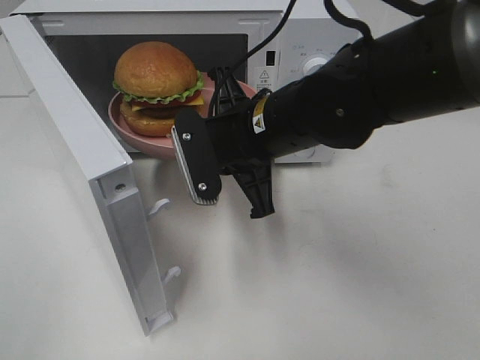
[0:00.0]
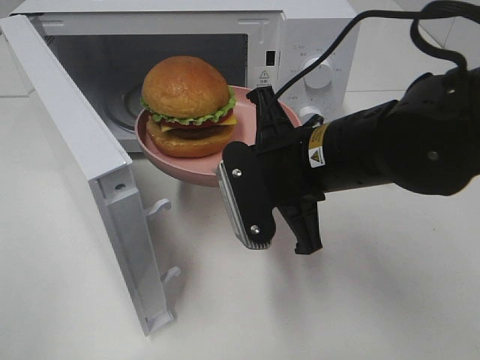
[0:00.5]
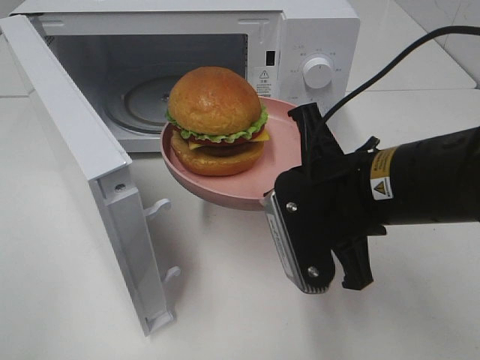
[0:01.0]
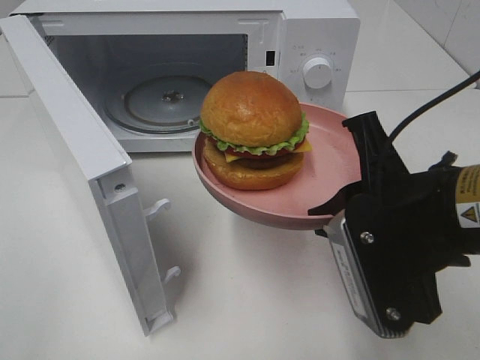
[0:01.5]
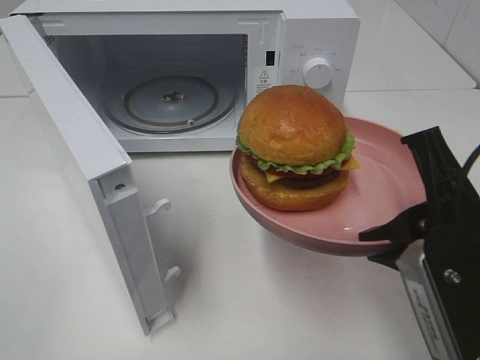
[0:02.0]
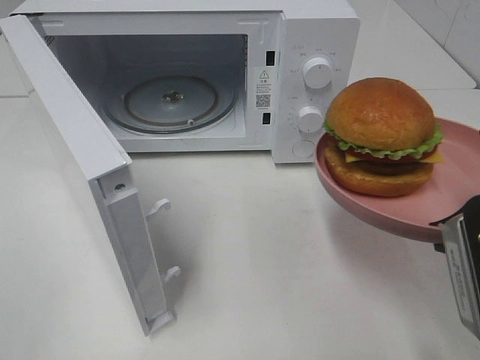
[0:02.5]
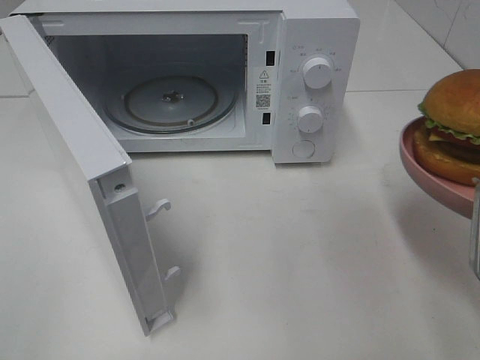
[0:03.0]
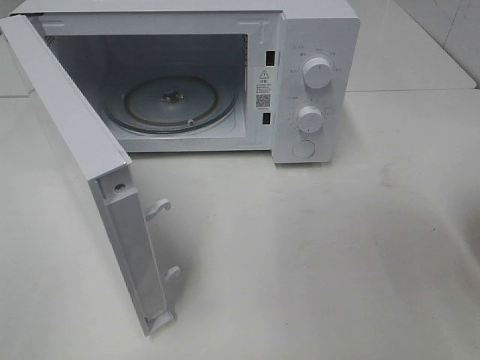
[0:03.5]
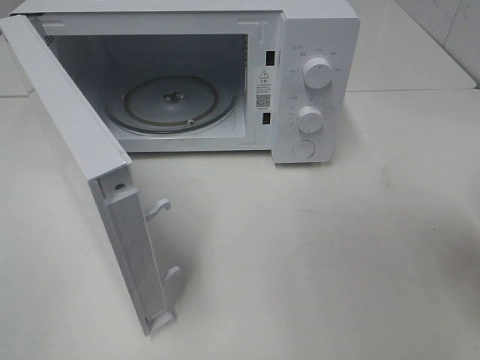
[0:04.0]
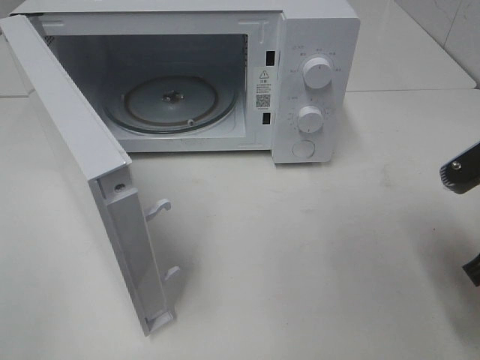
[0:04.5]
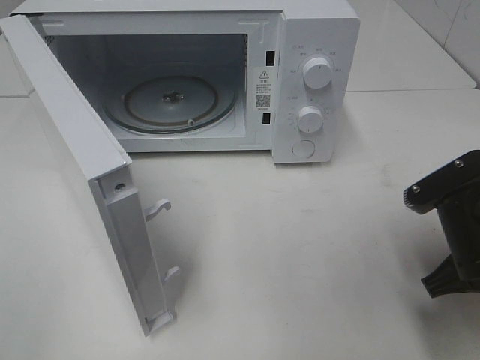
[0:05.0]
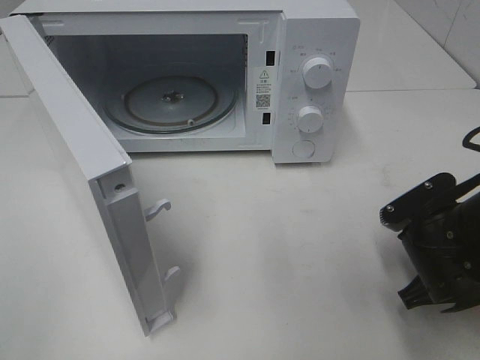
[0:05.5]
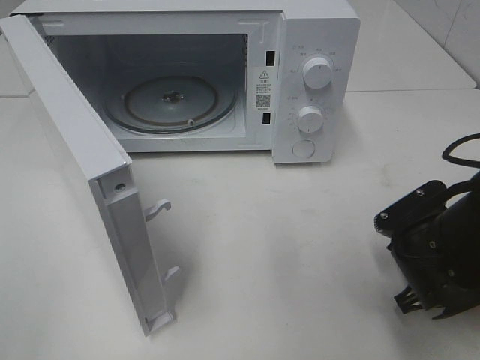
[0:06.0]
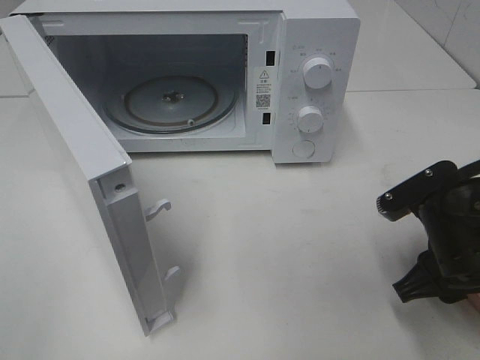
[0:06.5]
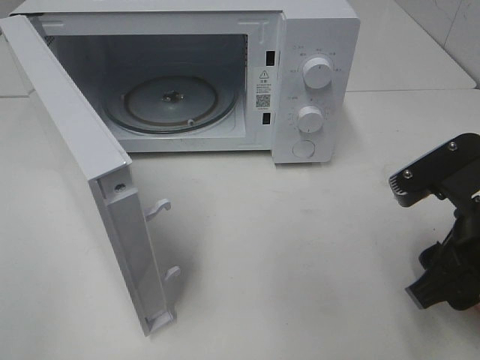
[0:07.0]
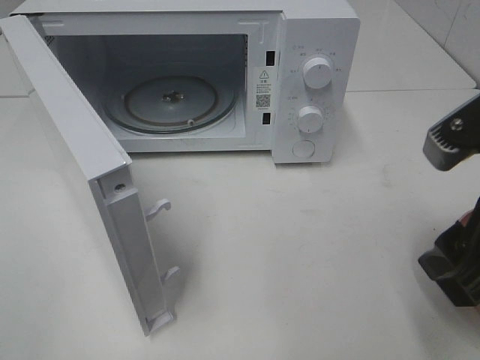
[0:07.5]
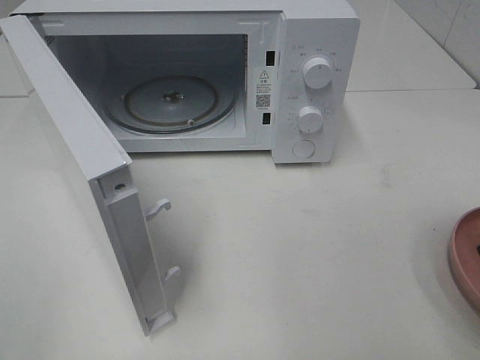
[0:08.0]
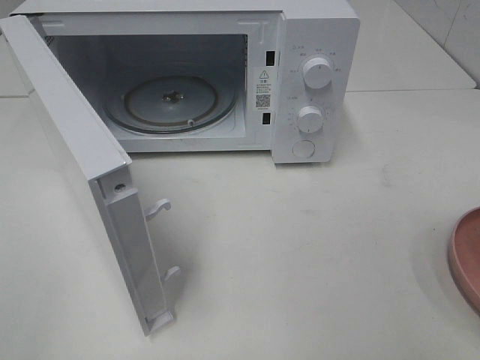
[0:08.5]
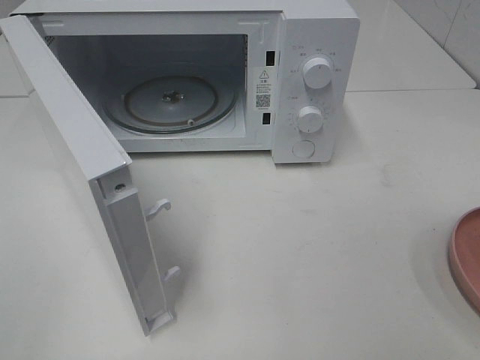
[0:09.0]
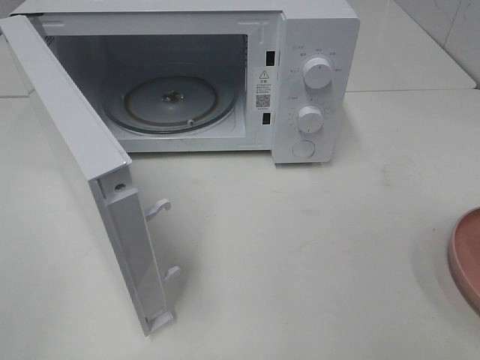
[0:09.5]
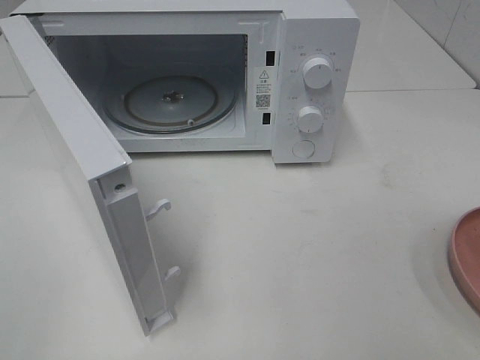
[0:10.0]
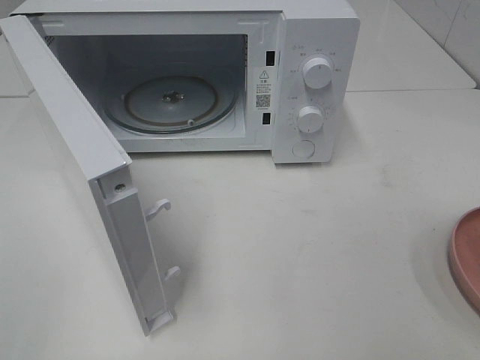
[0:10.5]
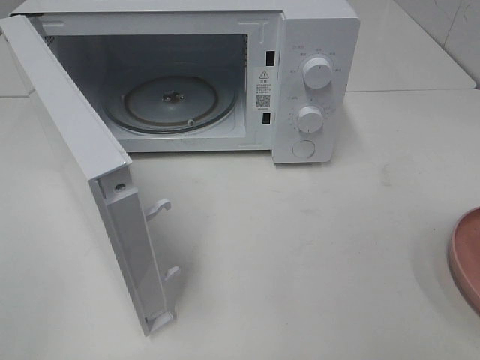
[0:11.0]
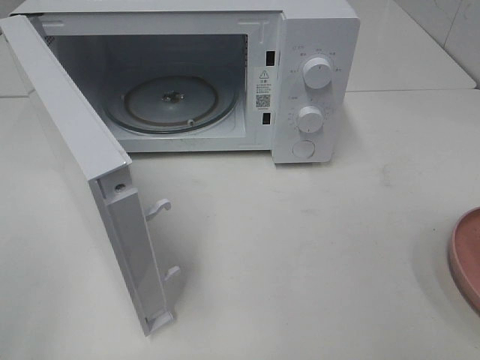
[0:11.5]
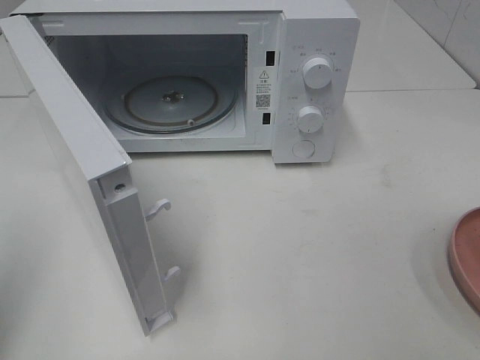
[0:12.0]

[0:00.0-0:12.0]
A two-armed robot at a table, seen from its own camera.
Task of the whole recording: Heat the burger.
Step, 0:00.0 to 0:07.0: Right hand: place the plate on the table.
0:00.0 to 0:02.0: The right gripper shifts approximately 20 cm backward and to the right.
0:02.0 to 0:04.0: The right gripper is displaced to the right by about 5 cm.
0:04.0 to 0:06.0: The right gripper shifts approximately 15 cm downward and forward.
0:06.0 to 0:08.0: The right gripper travels upward and backward by about 25 cm, and opens its fingers.

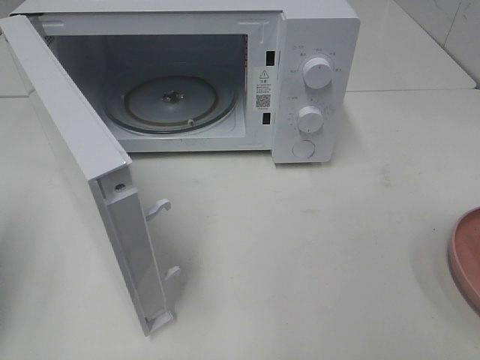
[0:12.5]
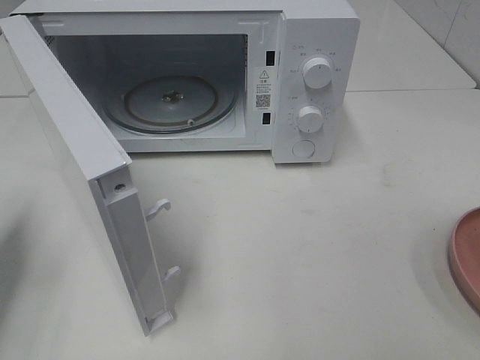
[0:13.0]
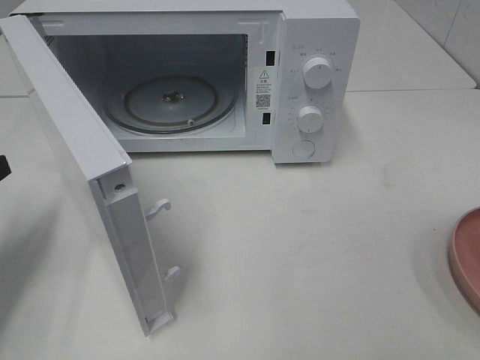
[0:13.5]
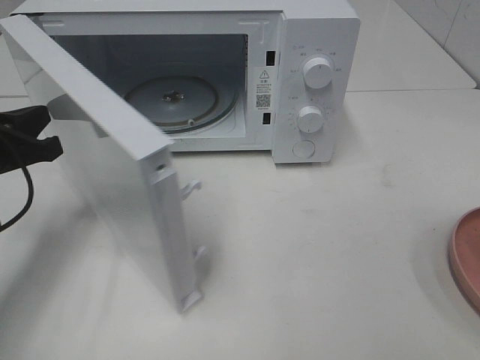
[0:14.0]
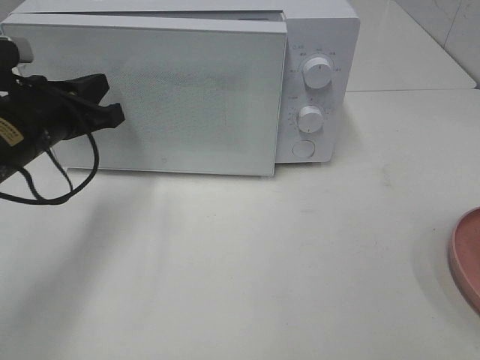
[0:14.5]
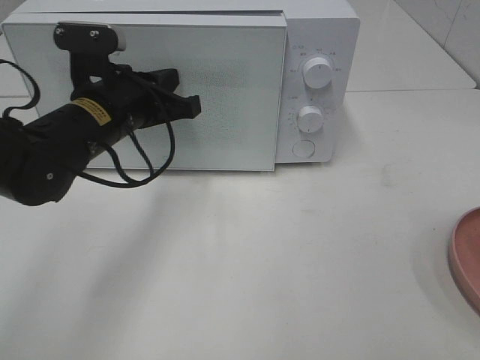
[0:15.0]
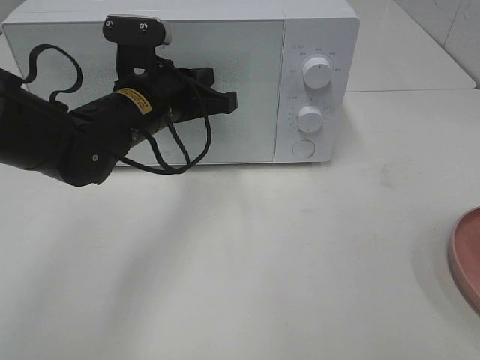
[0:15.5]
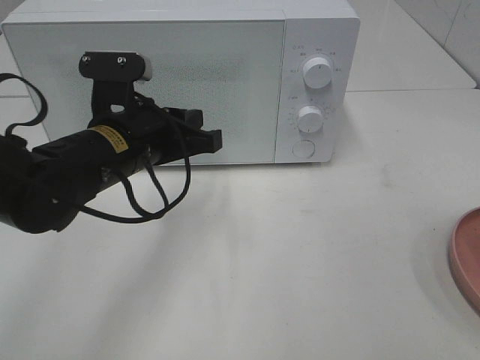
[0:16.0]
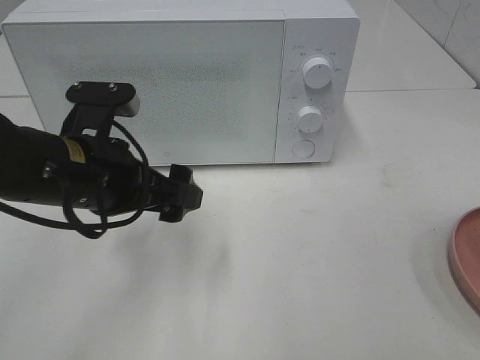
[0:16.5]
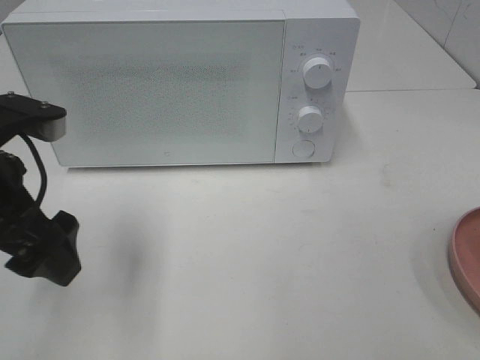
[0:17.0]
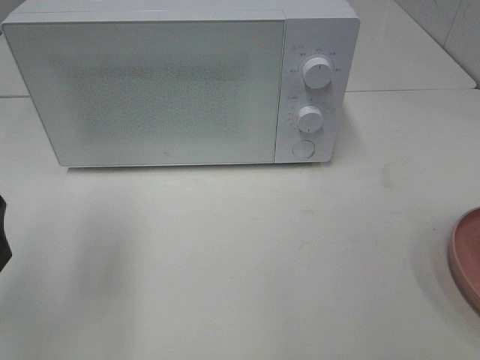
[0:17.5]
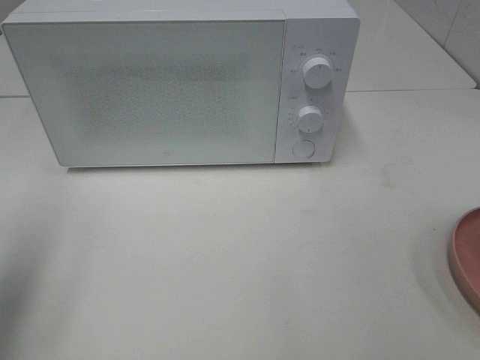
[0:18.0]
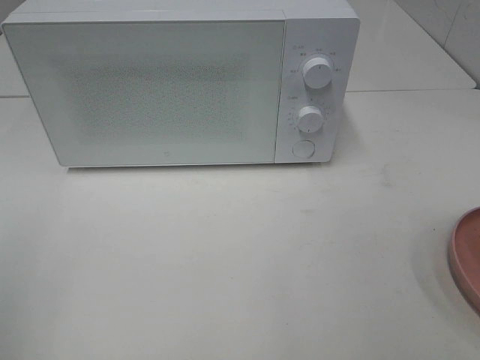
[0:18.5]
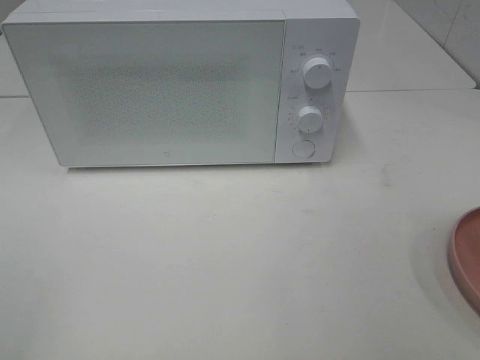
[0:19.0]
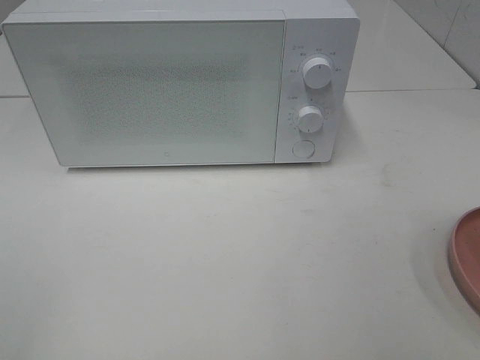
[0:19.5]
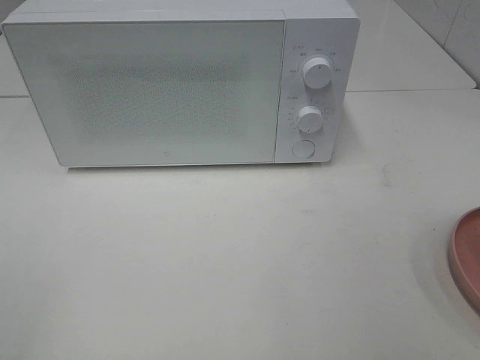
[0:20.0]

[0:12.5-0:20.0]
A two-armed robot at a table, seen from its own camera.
Task of the whole recording: Heat the burger.
Step, 0:12.5 to 0:16.0: Left hand: close the microwave door.
0:12.5 to 0:14.5: The left gripper moves forward, to the right and downward, approximately 20 cm.
0:14.5 to 0:16.5: The left gripper is displaced backward and to the right by about 10 cm, and opens up.
0:16.5 to 0:18.0: The left gripper goes some 25 cm to the left, upward and backward.
0:18.0 to 0:20.0: The left gripper is displaced backward by approximately 15 cm.

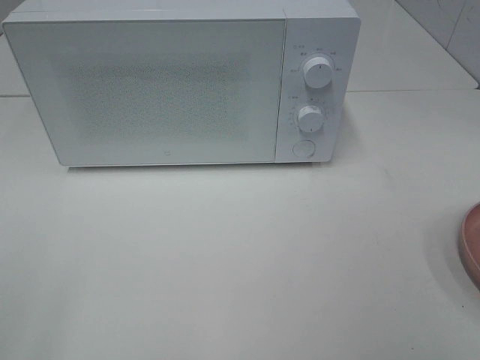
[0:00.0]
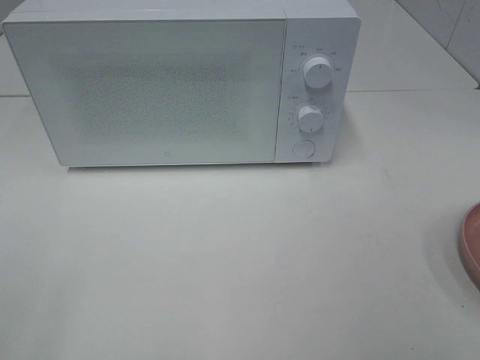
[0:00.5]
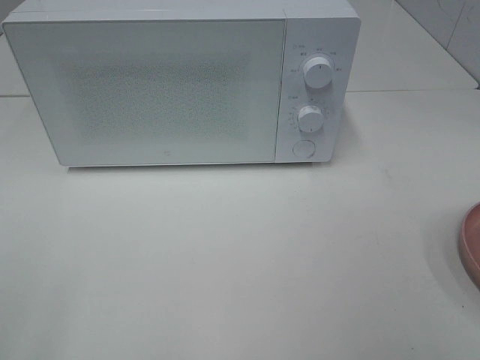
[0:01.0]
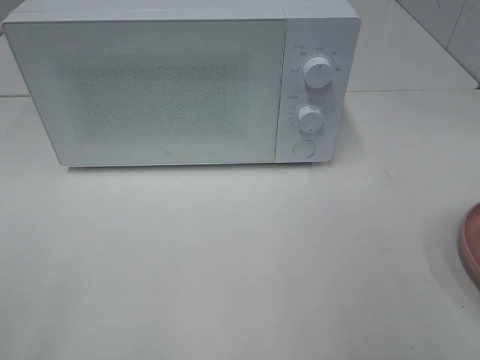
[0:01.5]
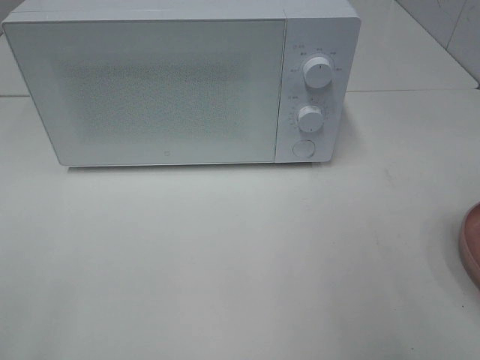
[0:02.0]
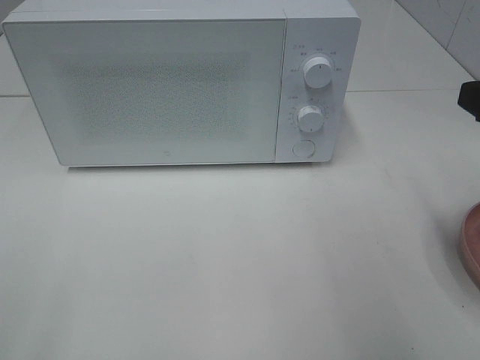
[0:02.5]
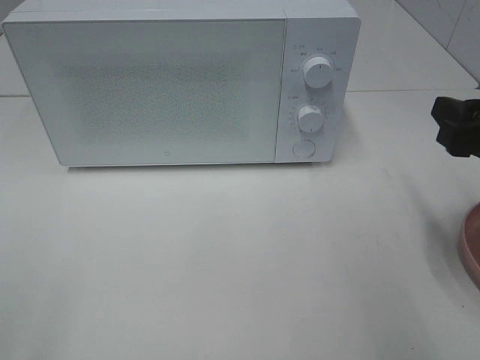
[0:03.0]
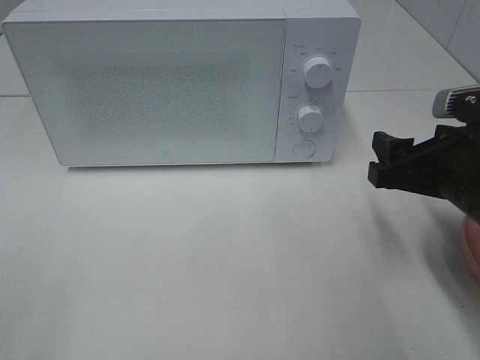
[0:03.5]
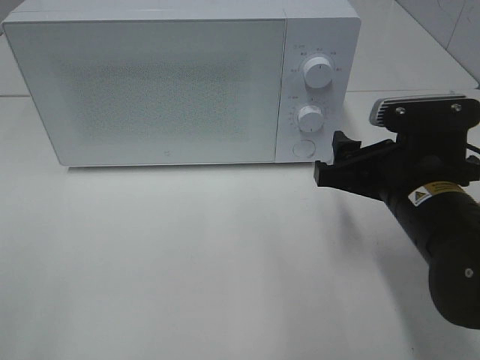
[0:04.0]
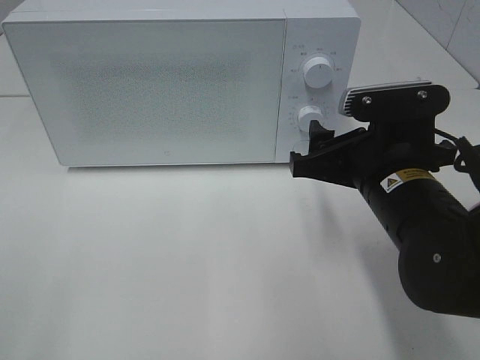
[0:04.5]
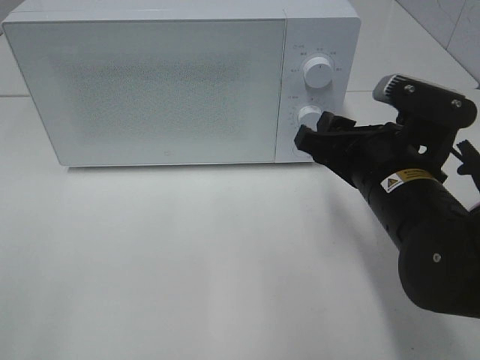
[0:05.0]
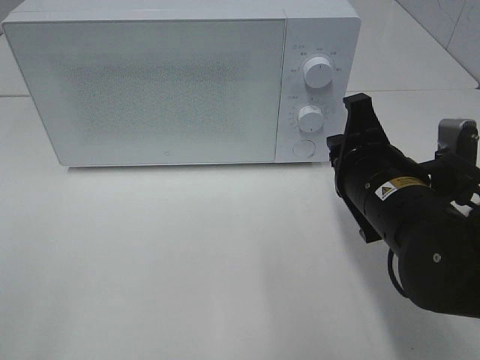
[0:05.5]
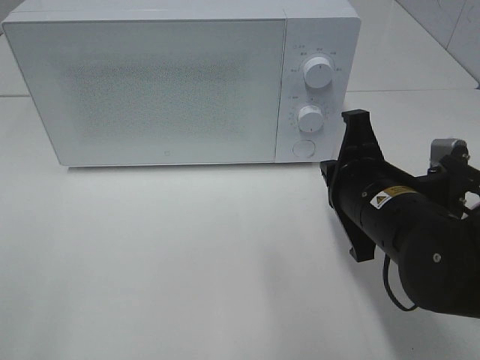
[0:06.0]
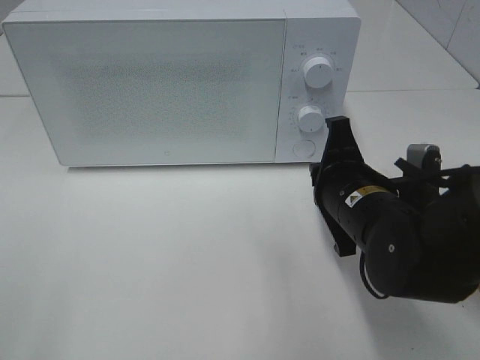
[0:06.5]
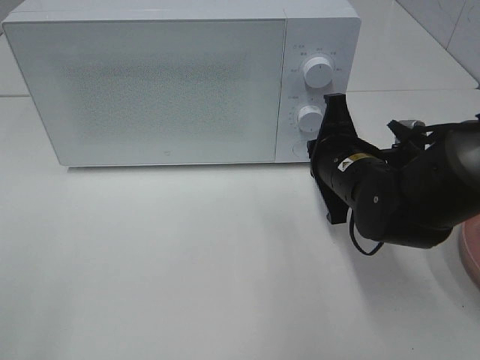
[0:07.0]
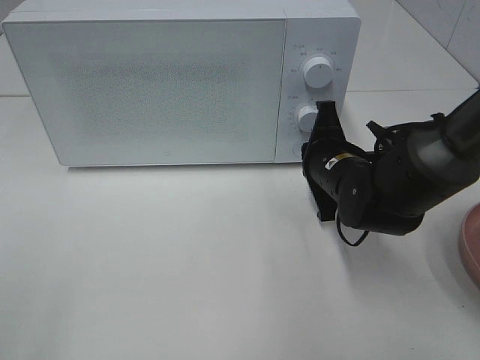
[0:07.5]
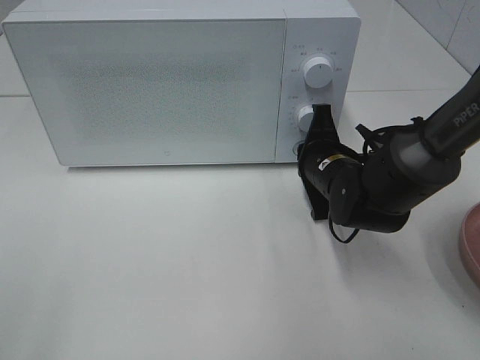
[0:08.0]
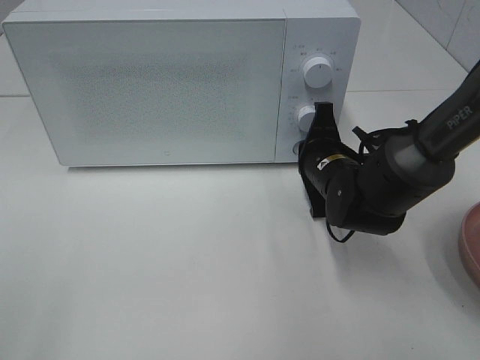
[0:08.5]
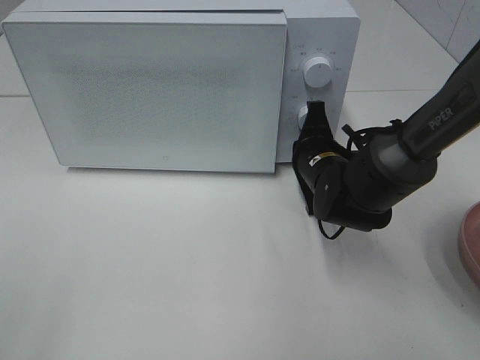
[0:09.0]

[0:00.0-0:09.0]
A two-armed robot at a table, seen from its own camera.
Task of the whole recording: Heat the burger.
0:02.0 to 0:04.5: The right gripper moves downward, to the left and forward, about 20 cm.
0:04.5 to 0:07.0: The right gripper heads forward, covering about 5 cm, and closes its fingers.
0:07.0 to 0:09.0: The right gripper is displaced forward by approximately 5 cm.
